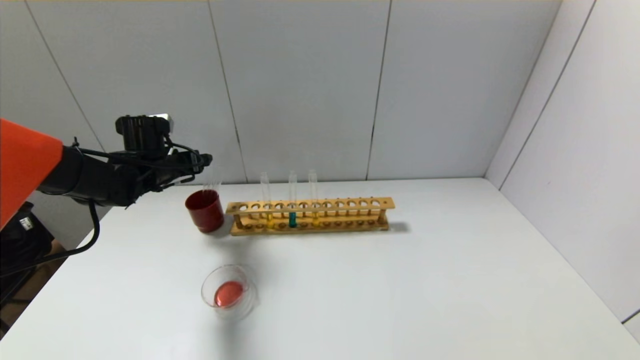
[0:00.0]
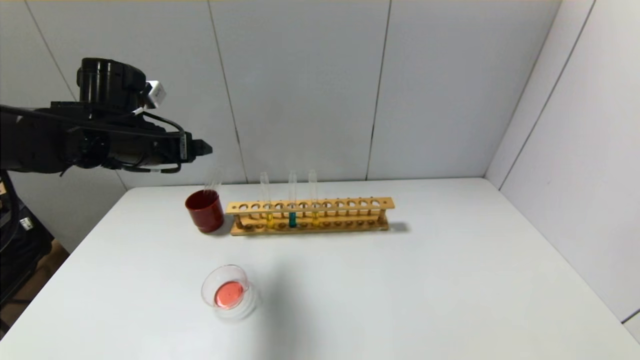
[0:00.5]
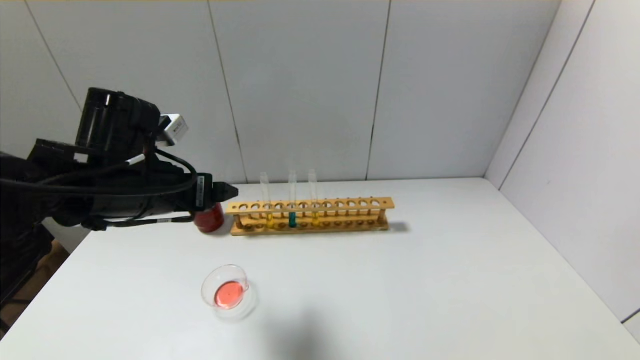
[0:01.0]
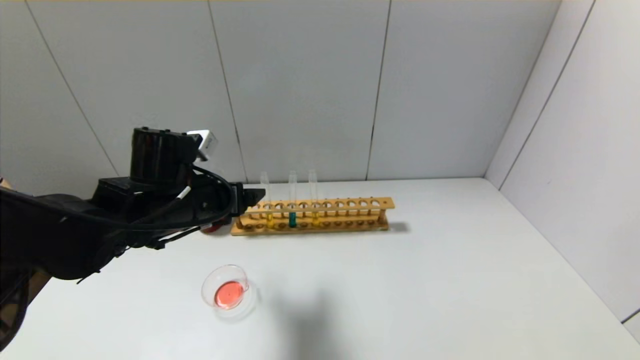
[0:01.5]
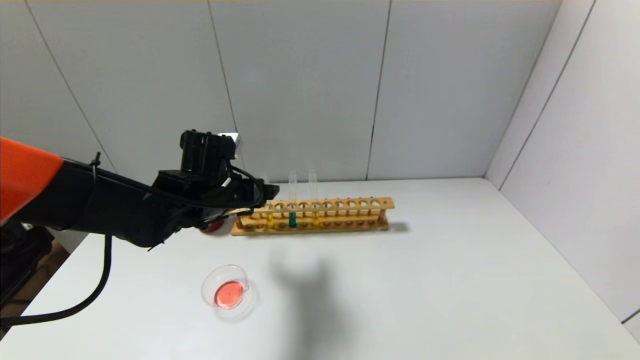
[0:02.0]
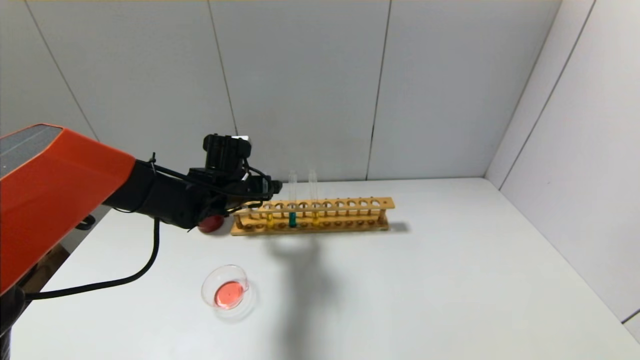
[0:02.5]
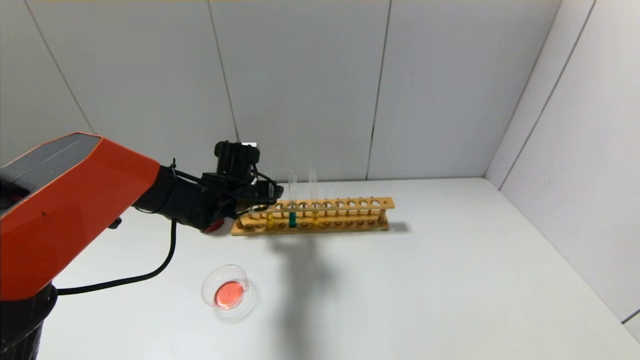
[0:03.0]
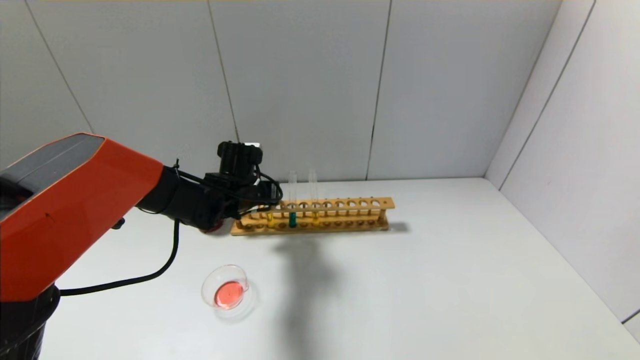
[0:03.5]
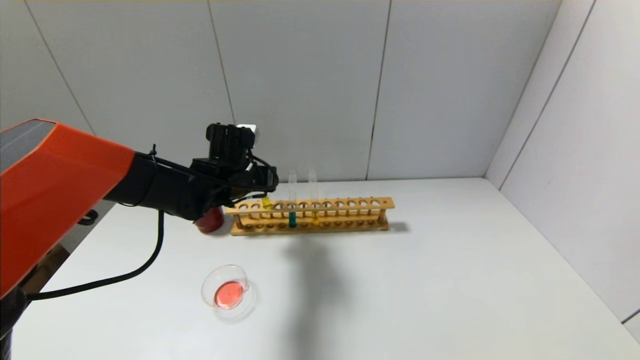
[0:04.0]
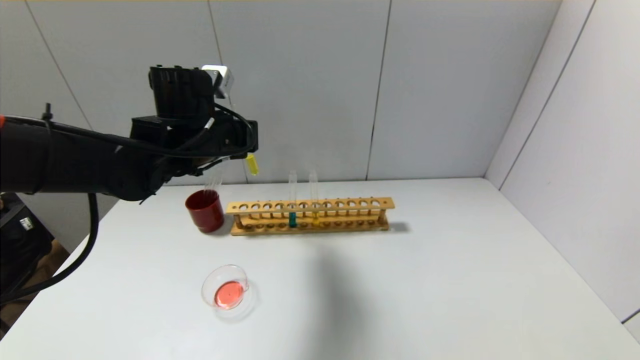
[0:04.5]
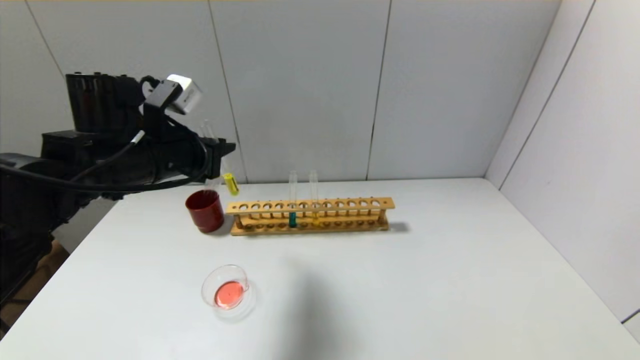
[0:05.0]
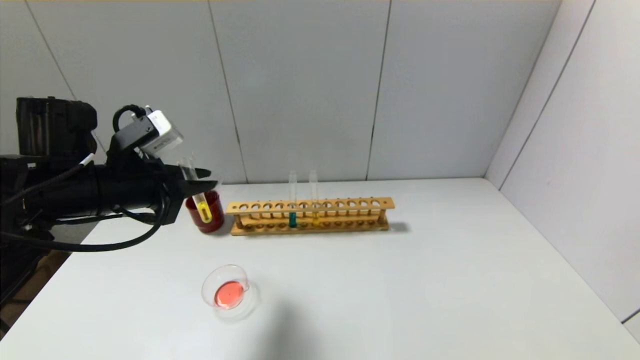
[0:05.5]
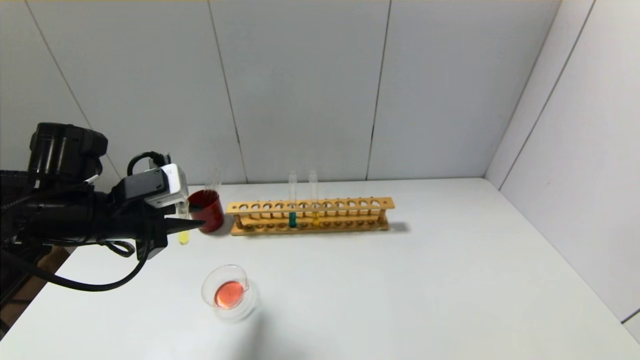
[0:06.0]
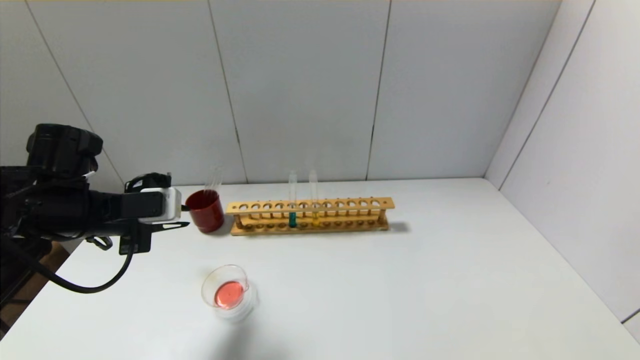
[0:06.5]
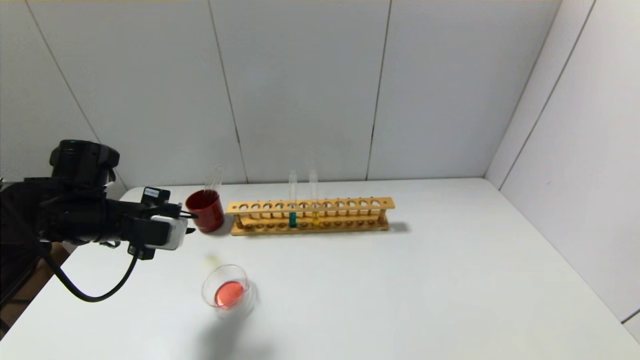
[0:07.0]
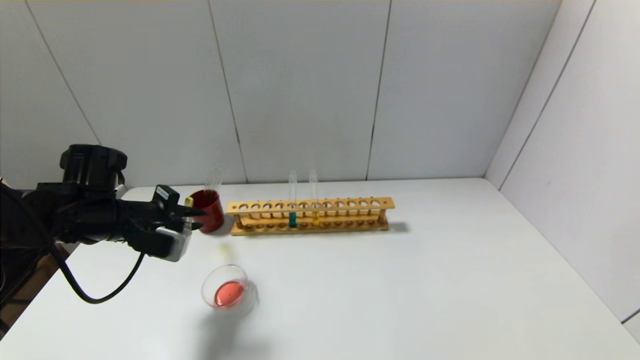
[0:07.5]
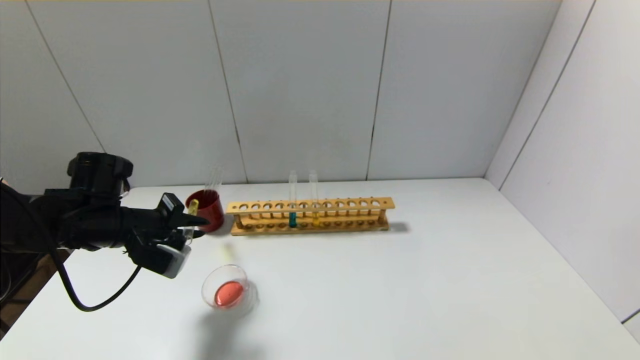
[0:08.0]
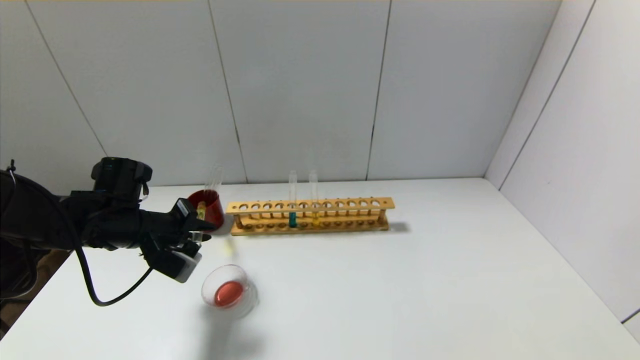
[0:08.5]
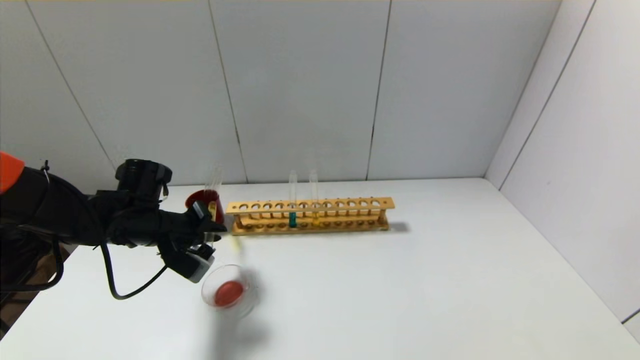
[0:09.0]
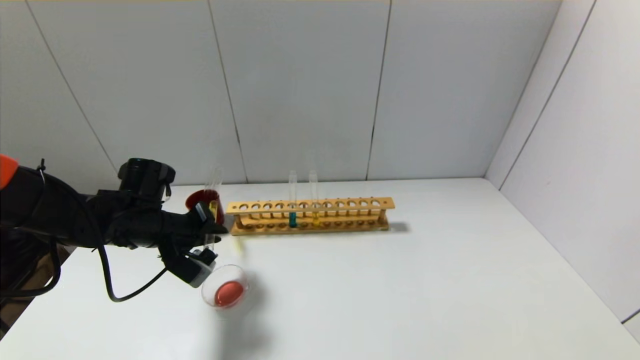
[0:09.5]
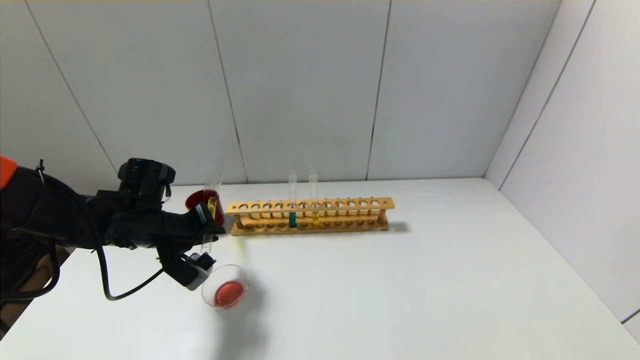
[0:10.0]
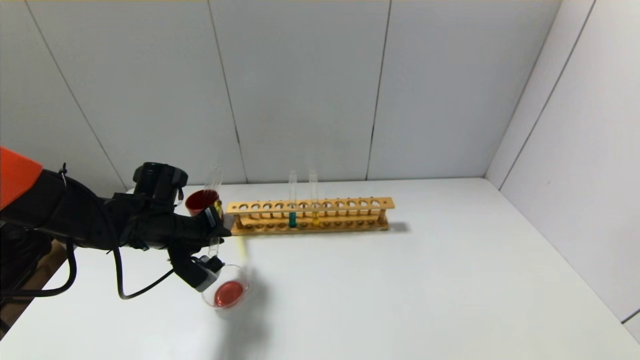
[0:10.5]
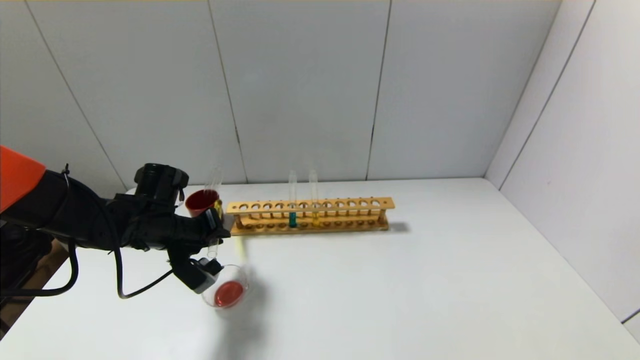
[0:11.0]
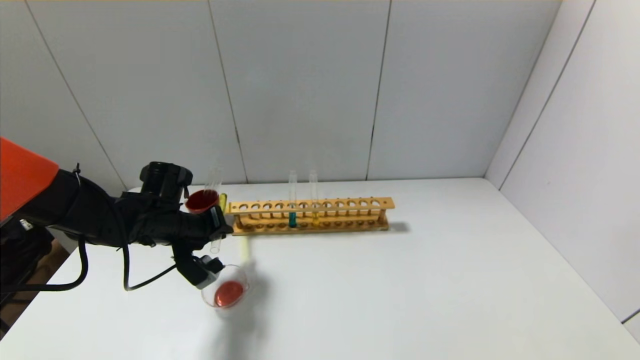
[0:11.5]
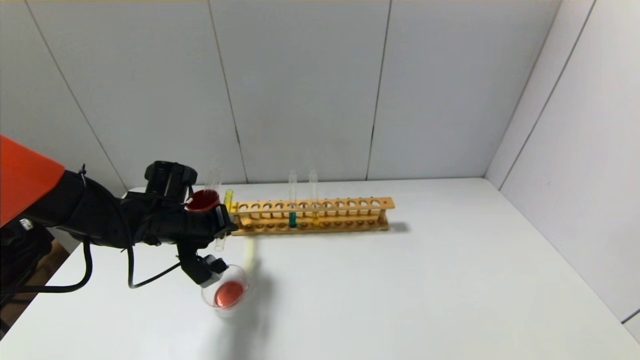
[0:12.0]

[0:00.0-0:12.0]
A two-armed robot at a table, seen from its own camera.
Step, 0:00.0 to 0:03.5: Grasp the yellow reagent with the left gripper.
0:00.0 to 0:02.0: The left gripper heads to the right and backward, covering roughly 15 cm.
0:02.0 to 0:04.0: The left gripper moves forward, approximately 5 cm, and closes its fingers.
0:04.0 to 0:06.0: The left gripper goes some 20 cm backward and to the left.
0:06.0 to 0:08.0: The left gripper heads downward, covering roughly 5 cm.
0:08.0 to 0:10.0: The grippers make only small movements.
0:10.0 to 0:12.0: There are only small adjustments of the grippers.

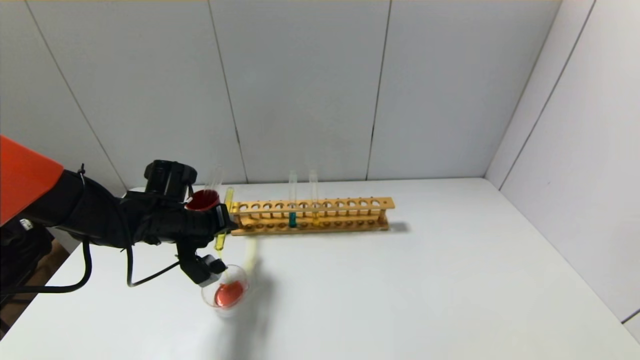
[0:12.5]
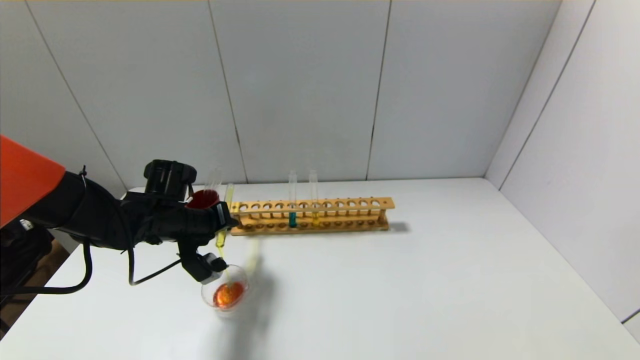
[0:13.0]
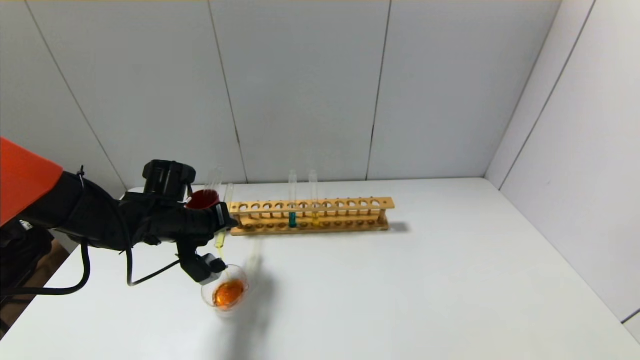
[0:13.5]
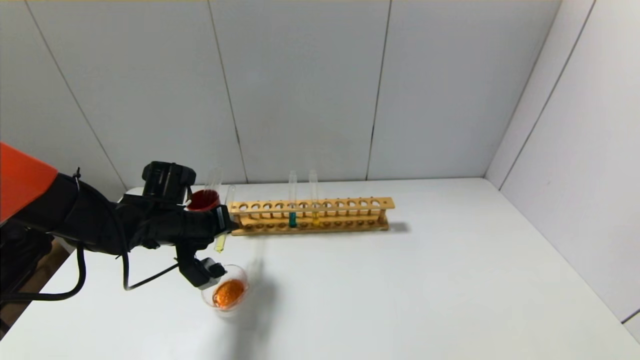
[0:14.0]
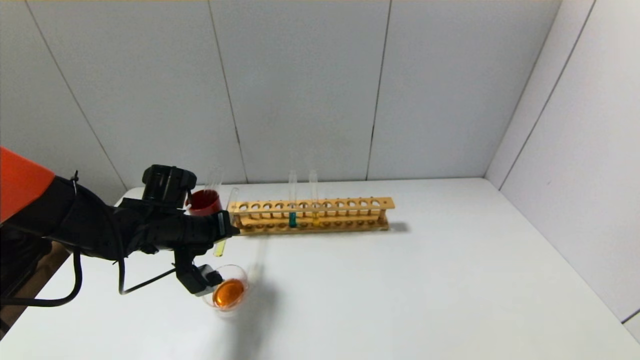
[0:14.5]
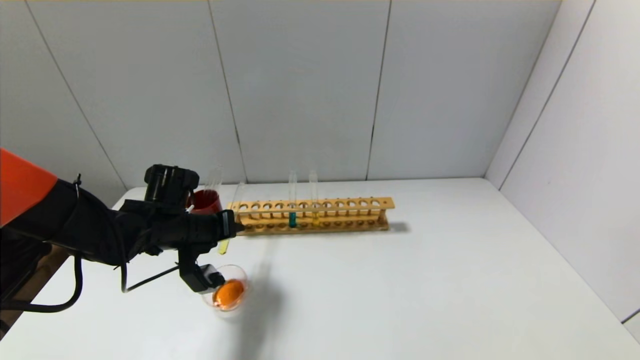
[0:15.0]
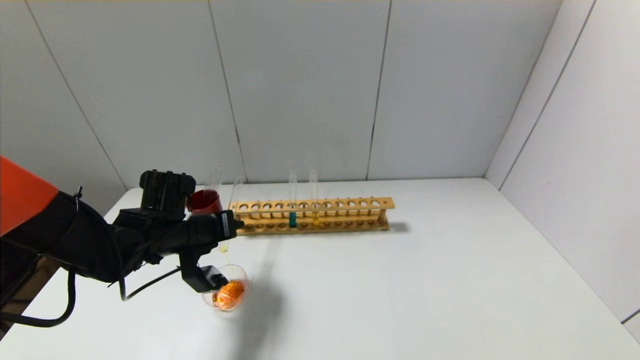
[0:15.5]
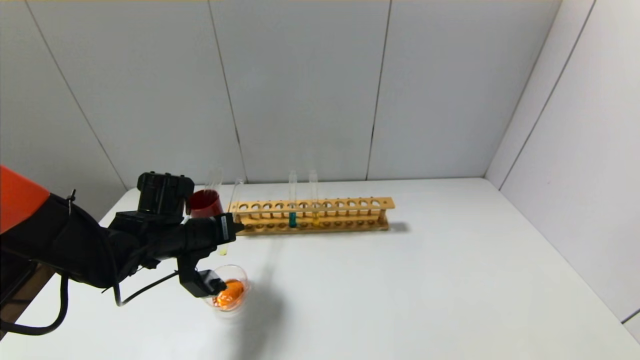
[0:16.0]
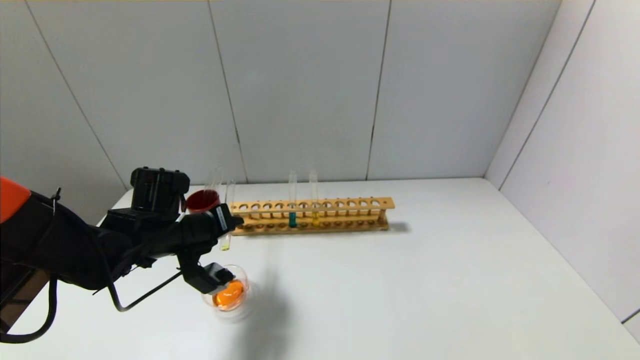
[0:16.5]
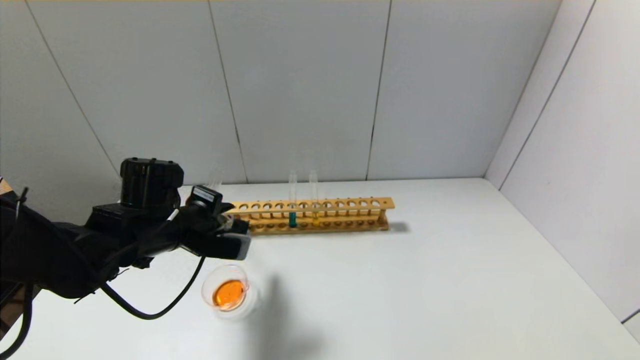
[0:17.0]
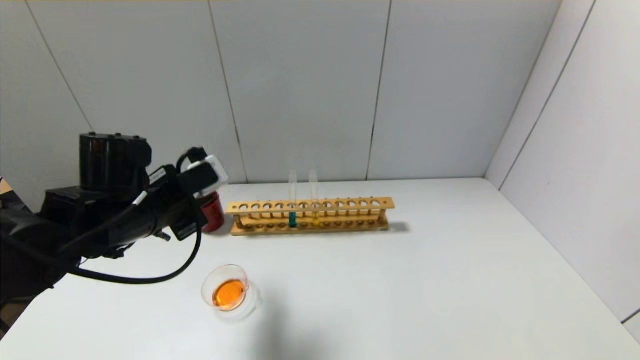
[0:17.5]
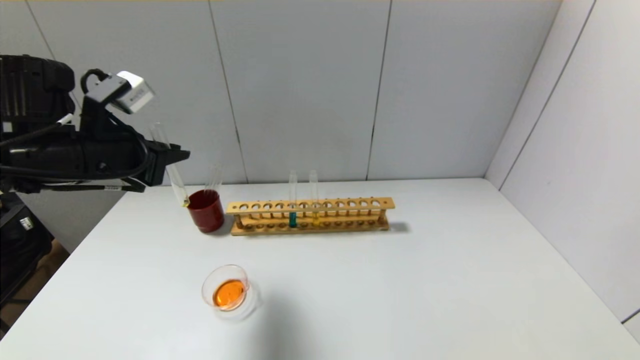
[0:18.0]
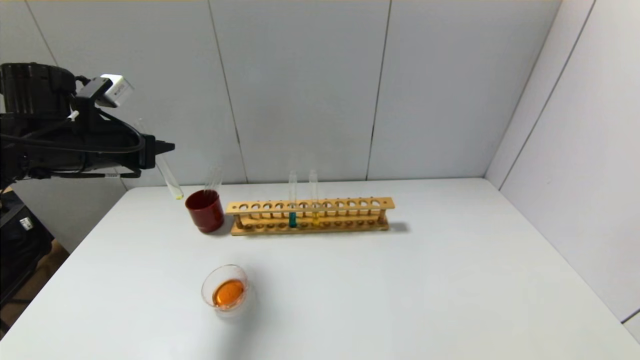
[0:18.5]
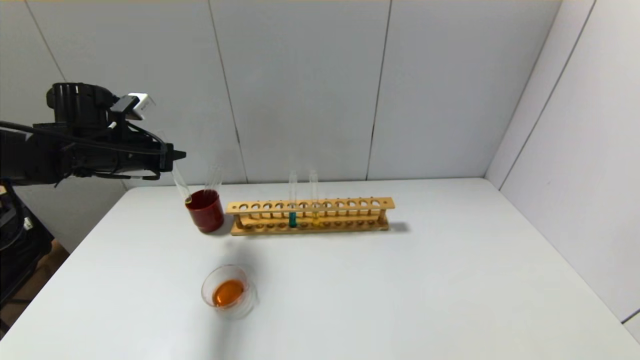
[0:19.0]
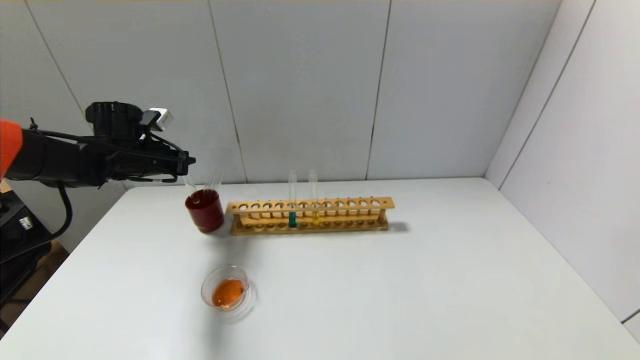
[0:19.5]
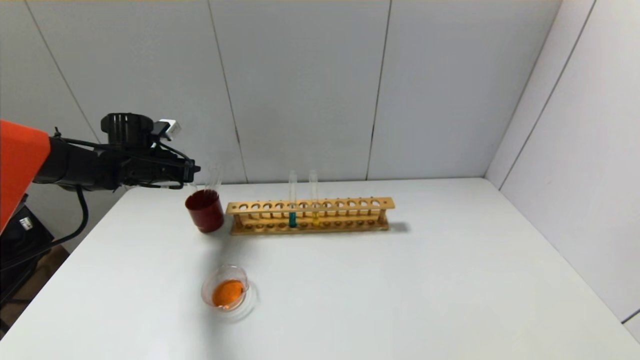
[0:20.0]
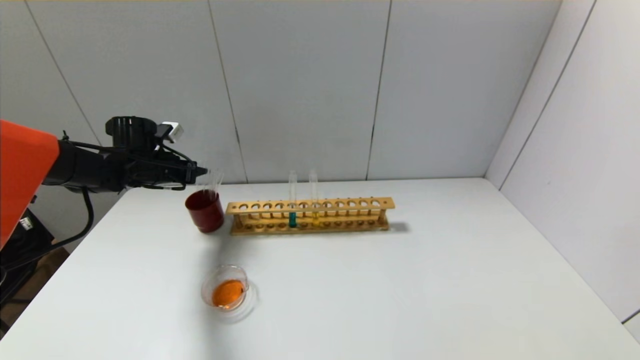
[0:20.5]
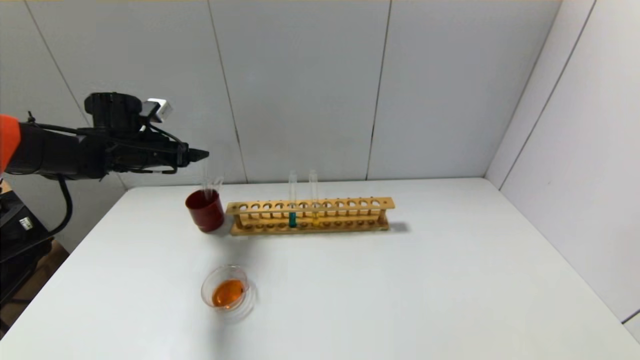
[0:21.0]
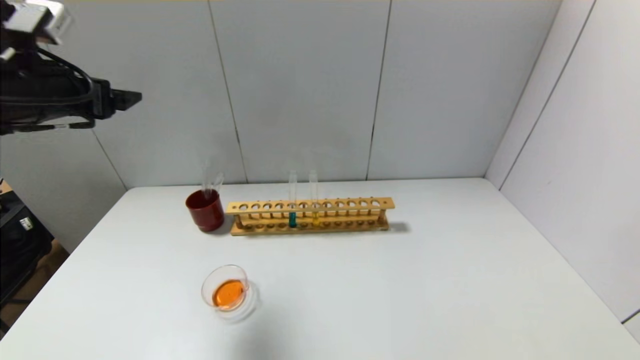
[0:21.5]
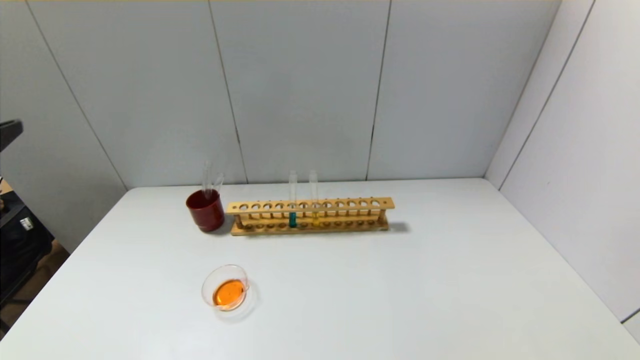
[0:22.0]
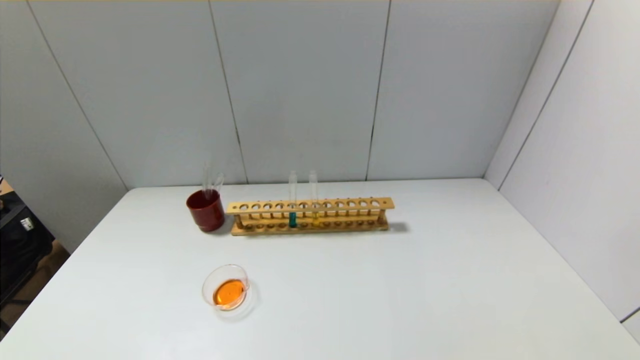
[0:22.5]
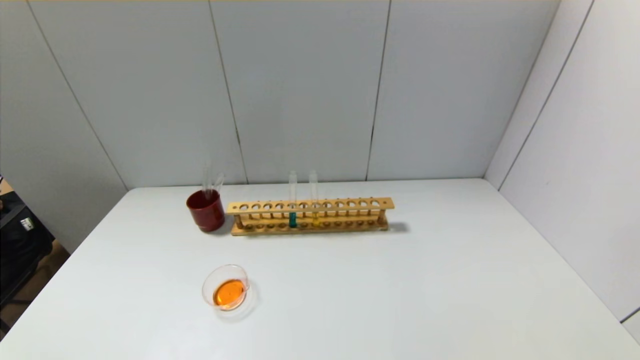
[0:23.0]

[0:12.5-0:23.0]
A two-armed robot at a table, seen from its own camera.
Step, 0:12.5 to 0:17.0: Pour the yellow reagent into the graduated cylinder with the left gripper.
Step, 0:17.5 to 0:20.0: Place the test tube into the brown cup with the left gripper.
0:12.5 to 0:16.5: The grippers make only small movements.
0:16.5 to 0:19.0: The left gripper is displaced to the left, upward and forward by about 15 cm.
0:19.0 to 0:21.0: The left gripper opens its fingers.
0:21.0 to 0:23.0: The left gripper shifts some 40 cm backward.
